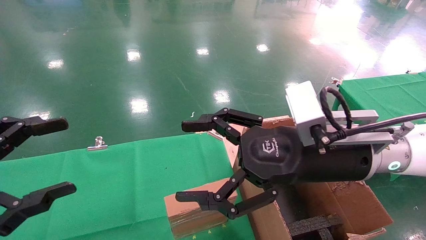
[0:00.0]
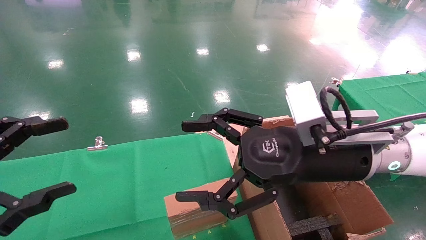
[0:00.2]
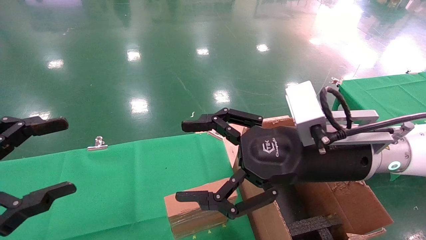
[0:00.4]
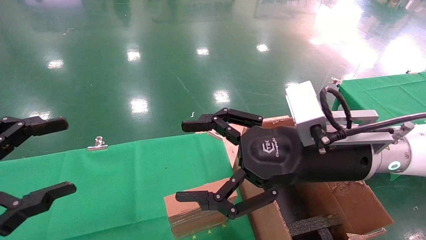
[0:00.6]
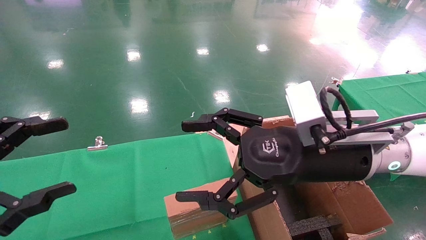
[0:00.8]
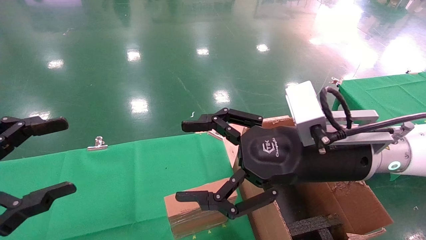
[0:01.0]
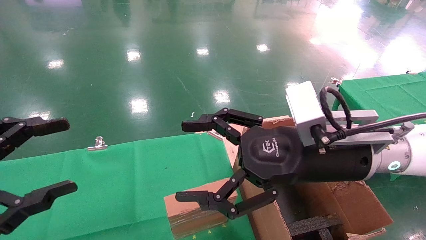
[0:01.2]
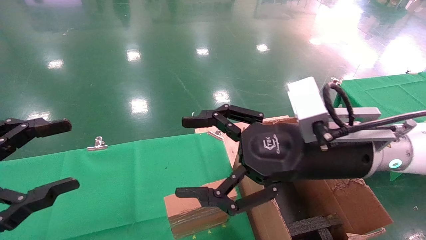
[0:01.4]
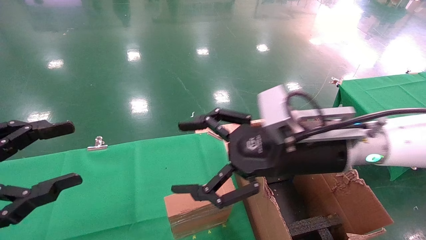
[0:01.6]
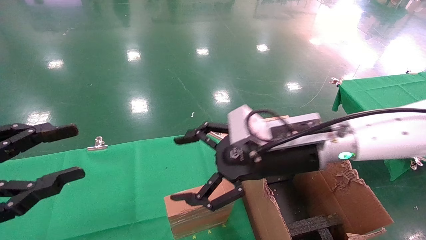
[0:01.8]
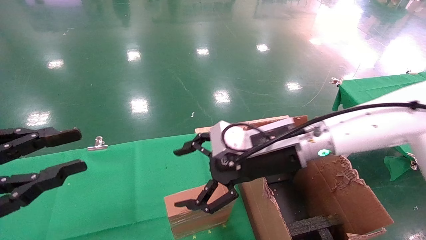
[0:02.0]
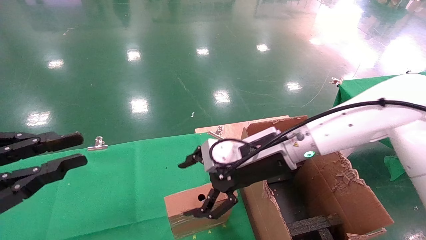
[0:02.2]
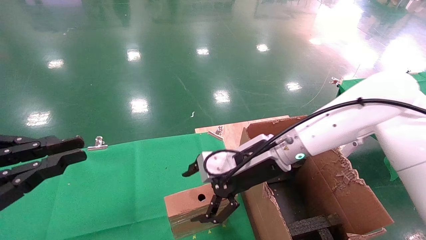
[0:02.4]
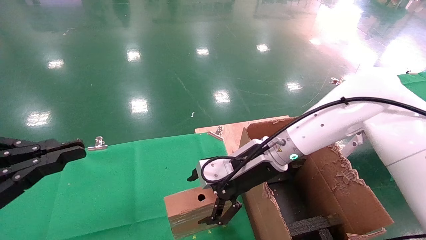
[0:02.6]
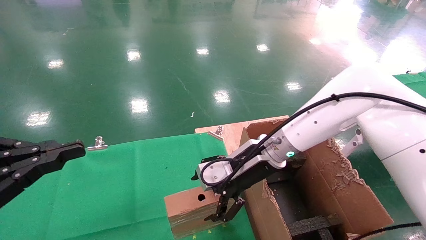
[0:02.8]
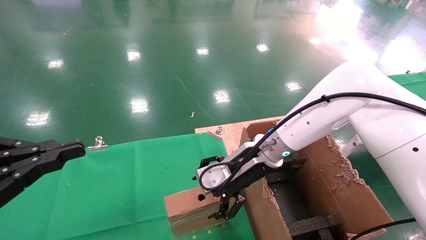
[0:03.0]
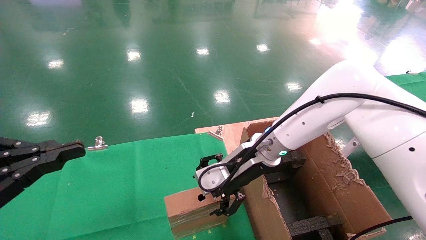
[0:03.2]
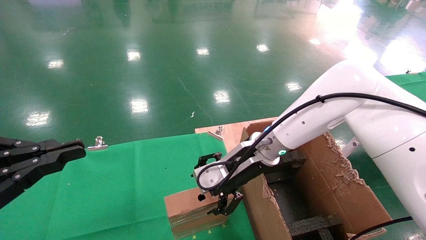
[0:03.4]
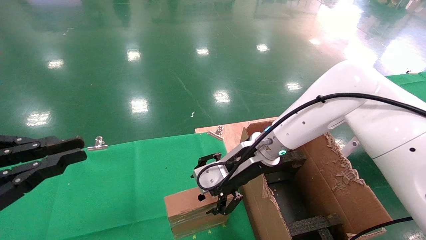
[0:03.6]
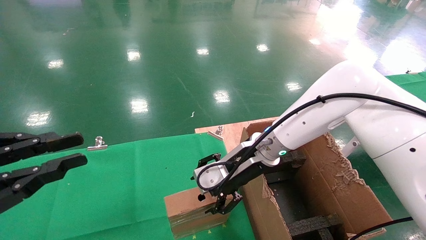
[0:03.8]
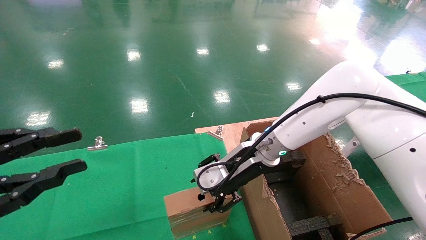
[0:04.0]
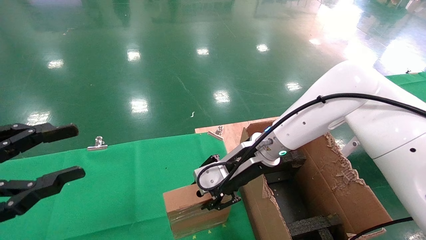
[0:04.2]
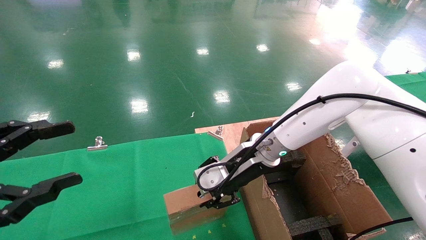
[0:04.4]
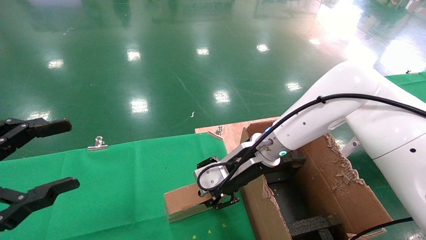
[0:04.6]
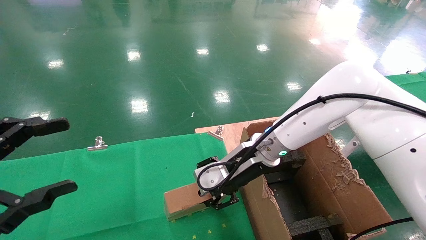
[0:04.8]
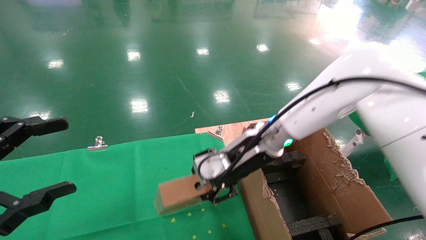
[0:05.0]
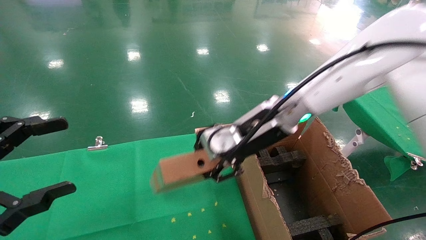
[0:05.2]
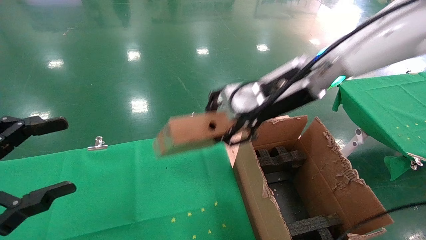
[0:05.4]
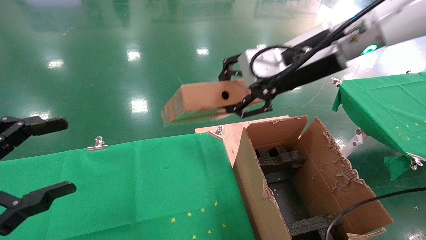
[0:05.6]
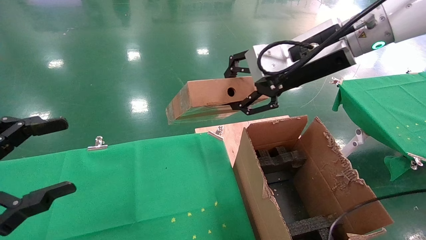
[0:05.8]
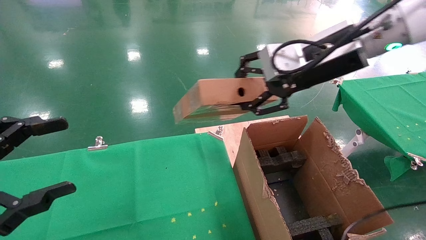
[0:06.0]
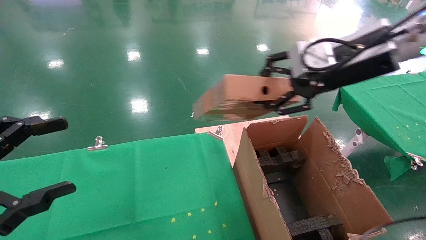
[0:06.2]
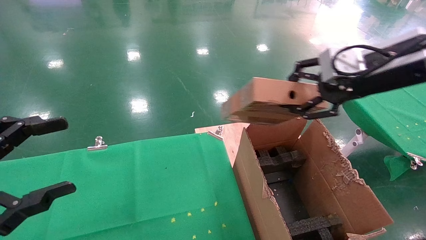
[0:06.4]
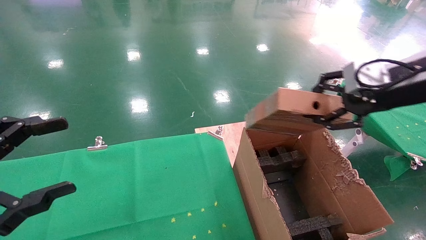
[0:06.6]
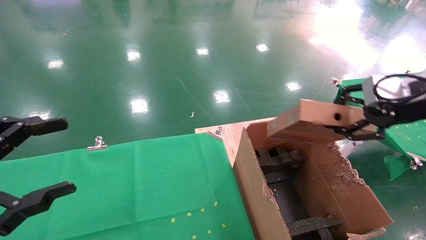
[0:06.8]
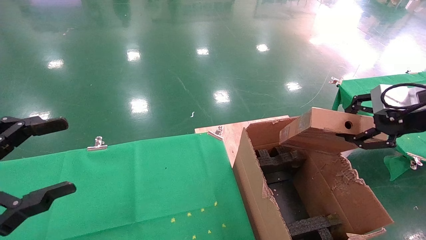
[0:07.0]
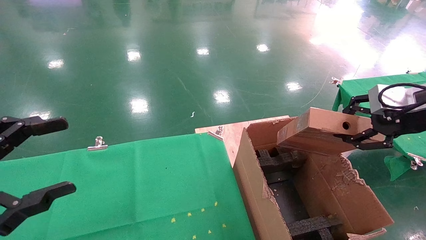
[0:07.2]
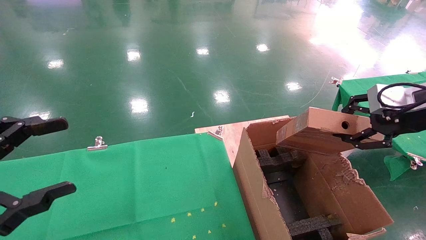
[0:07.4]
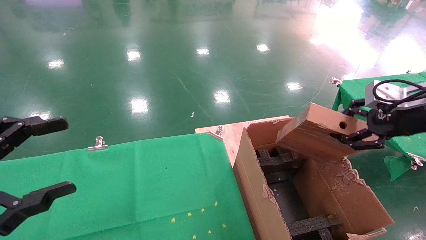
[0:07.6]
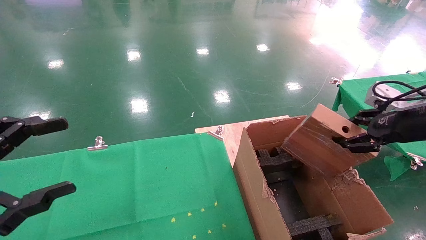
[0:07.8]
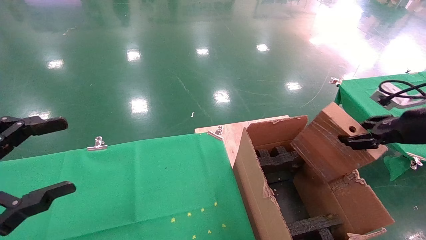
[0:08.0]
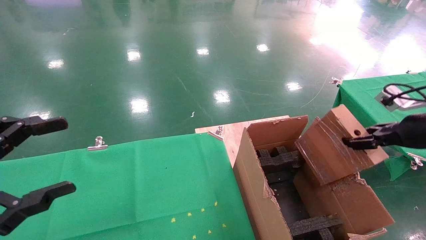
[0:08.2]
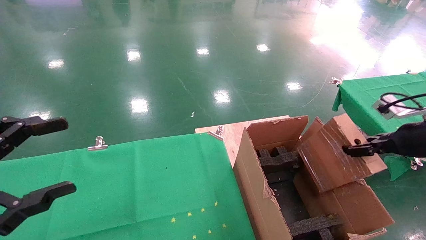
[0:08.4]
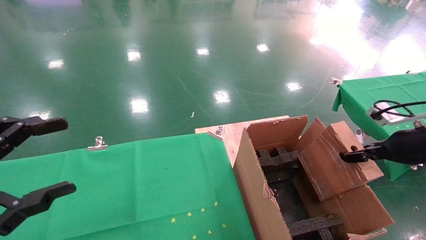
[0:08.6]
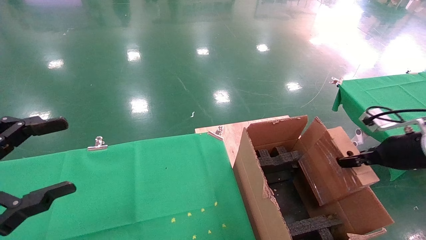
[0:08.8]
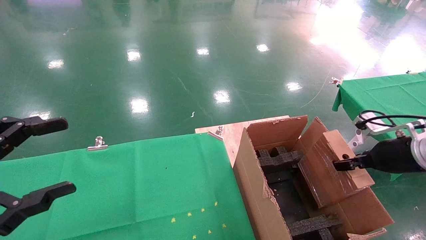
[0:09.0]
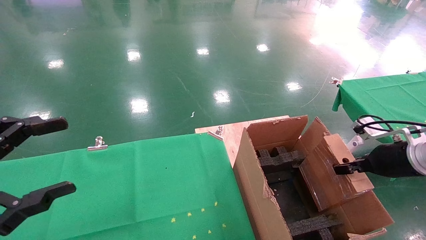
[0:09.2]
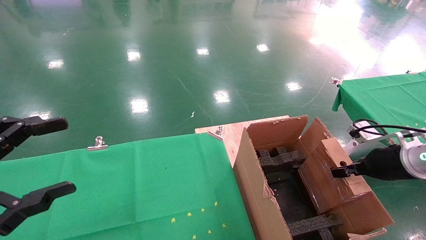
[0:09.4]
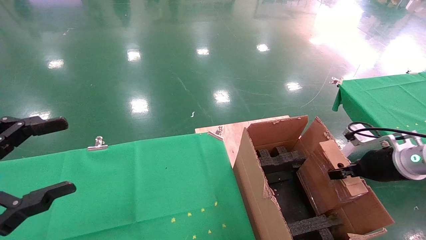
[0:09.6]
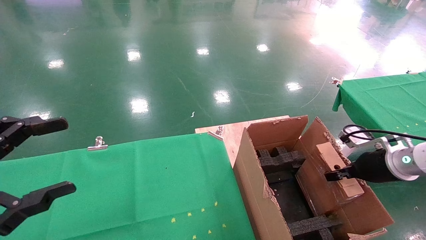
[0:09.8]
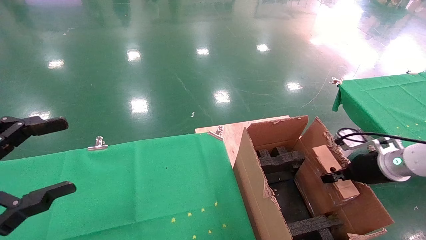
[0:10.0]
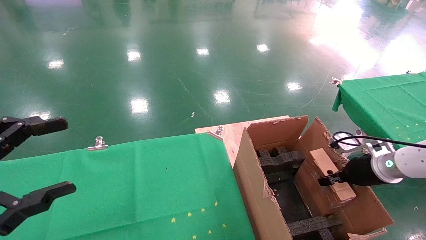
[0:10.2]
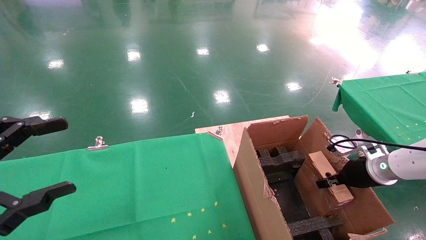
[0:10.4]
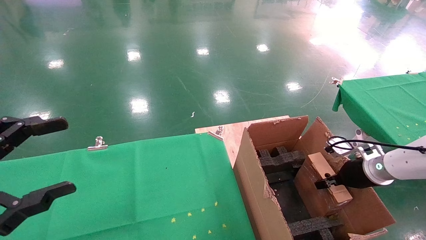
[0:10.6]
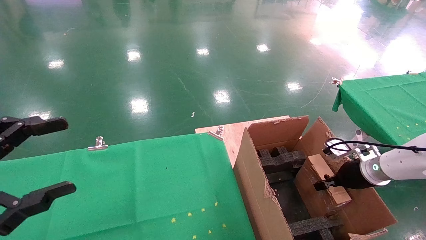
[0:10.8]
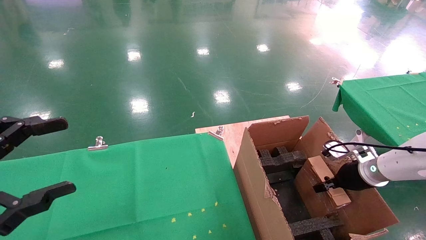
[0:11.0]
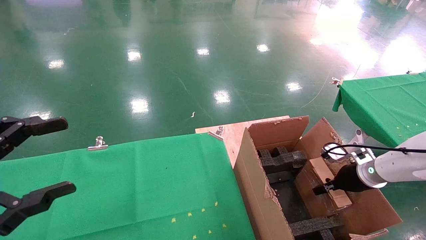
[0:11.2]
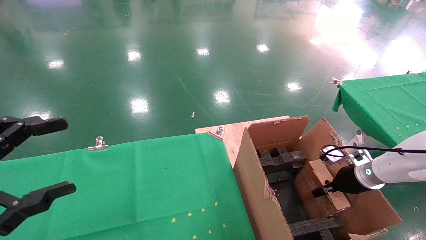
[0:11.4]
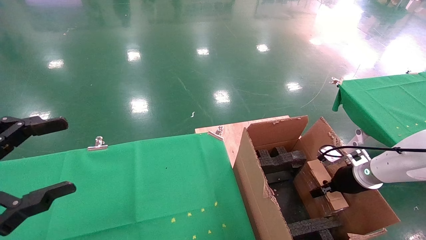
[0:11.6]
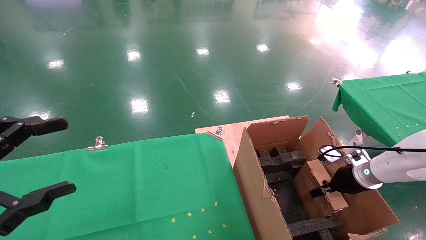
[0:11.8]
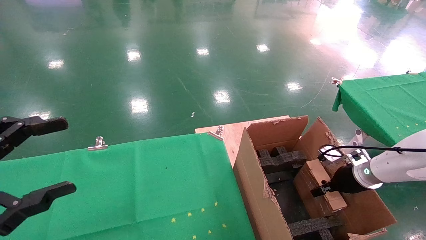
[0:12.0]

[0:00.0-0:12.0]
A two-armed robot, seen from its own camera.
Task of the whole recording: using a robotic arm to pick up a cardboard box and palace it the carton.
Step, 0:01.2 to 0:04.4: Pick up the mouse and the power cord paper box.
0:00.0 to 0:01.6: The grippers make only small movements.
0:01.6 to 0:03.0: The left gripper closes; the right gripper goes some 10 cm forward and downward.
0:03.0 to 0:04.4: The left gripper opens up; the right gripper closes up.
0:04.4 to 0:06.0: The left gripper opens; the right gripper heads upward and to the right, covering approximately 25 cm.
0:06.0 to 0:07.6: The right gripper moves to the right and downward, roughly 20 cm.
0:07.6 to 0:09.0: The right gripper is displaced downward by approximately 10 cm.
0:09.0 to 0:10.4: The right gripper shifts roughly 10 cm downward and forward.
0:10.4 to 0:12.0: There are only small adjustments of the grippers.

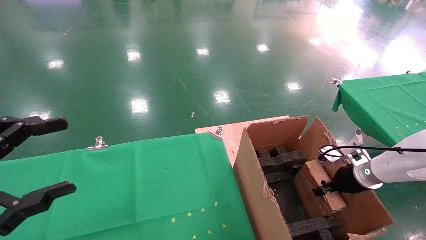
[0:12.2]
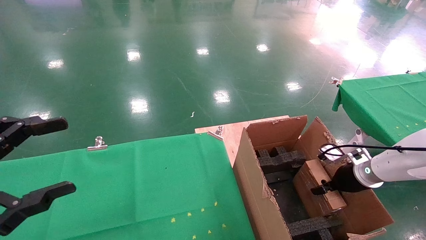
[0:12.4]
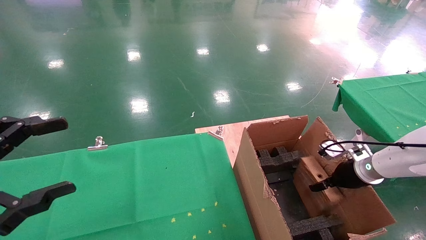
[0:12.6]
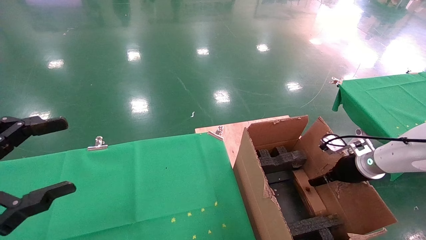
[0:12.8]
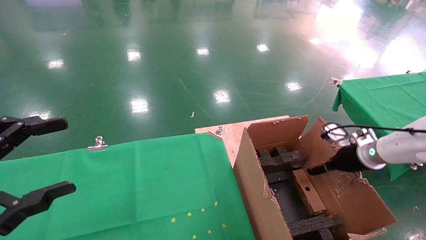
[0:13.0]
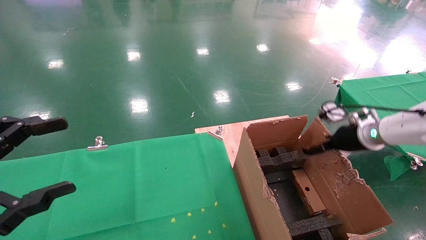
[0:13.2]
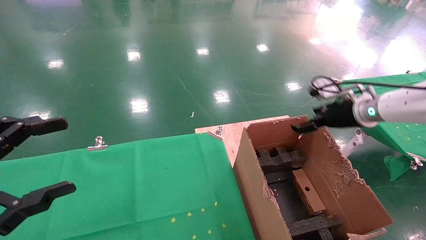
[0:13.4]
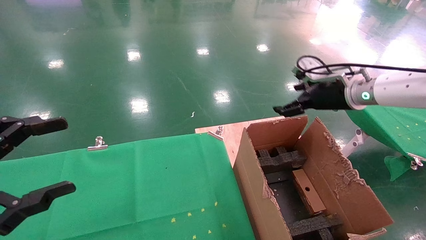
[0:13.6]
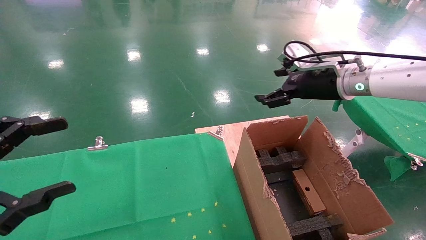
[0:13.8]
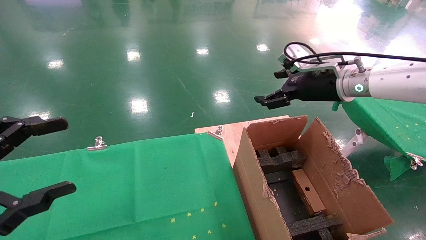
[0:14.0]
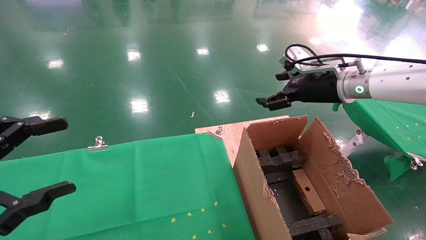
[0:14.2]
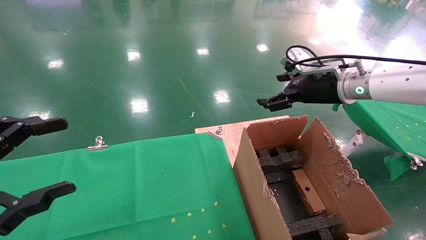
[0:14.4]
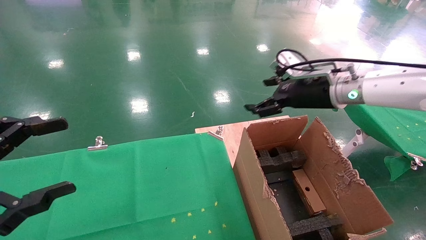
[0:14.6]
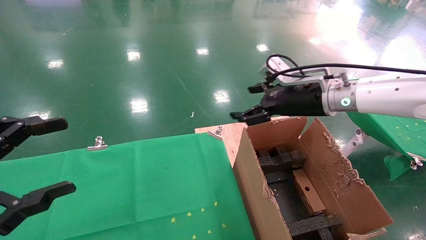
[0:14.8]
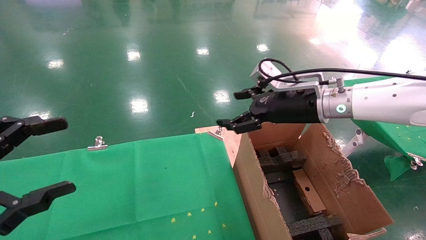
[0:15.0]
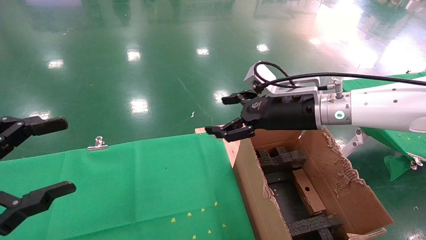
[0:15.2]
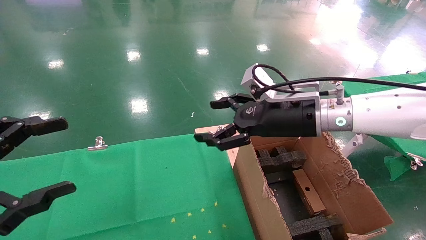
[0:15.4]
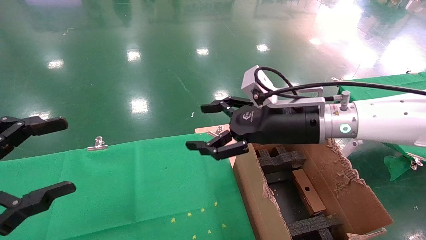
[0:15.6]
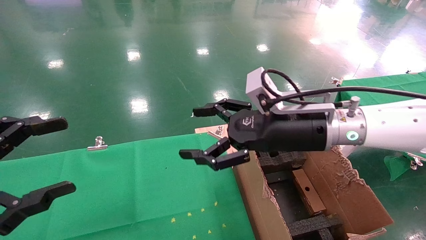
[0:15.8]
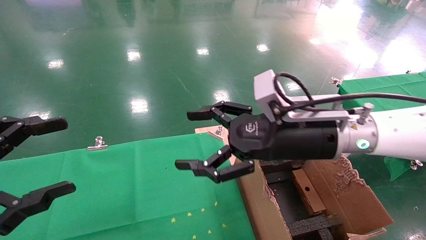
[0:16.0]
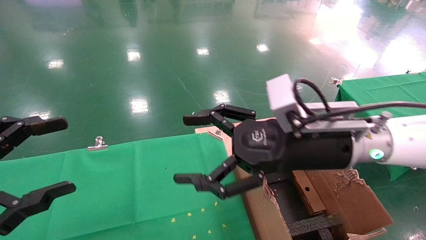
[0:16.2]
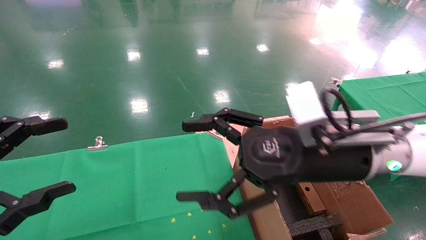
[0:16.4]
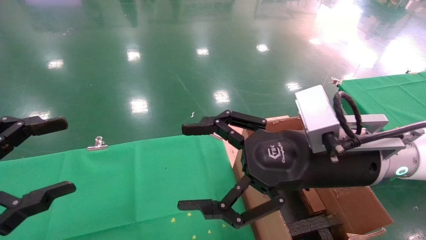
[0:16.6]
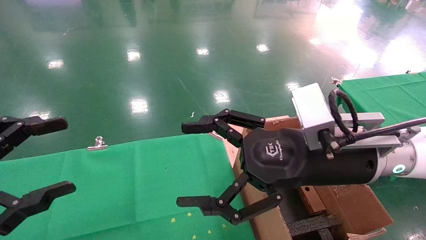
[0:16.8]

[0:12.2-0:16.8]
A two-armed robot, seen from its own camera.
Task of the whole recording: using a robotic arm to pick up a cardboard box and palace it the carton.
0:12.2 to 0:13.8: The right gripper heads upward and to the left, covering roughly 25 cm, and opens.
0:13.8 to 0:15.2: The right gripper travels to the left by approximately 10 cm.
0:15.2 to 0:16.8: The right gripper moves backward, roughly 15 cm.
